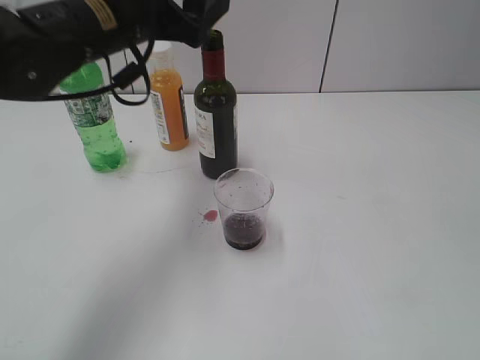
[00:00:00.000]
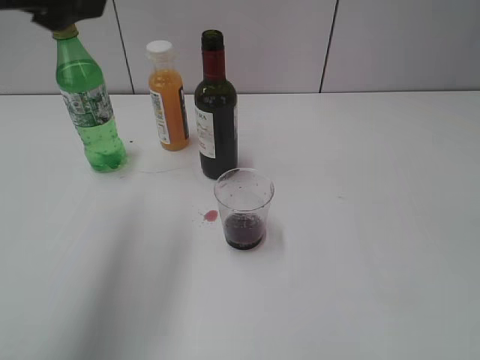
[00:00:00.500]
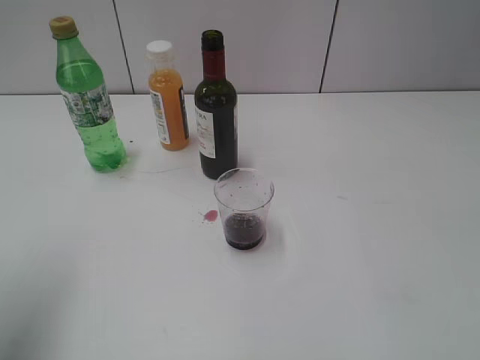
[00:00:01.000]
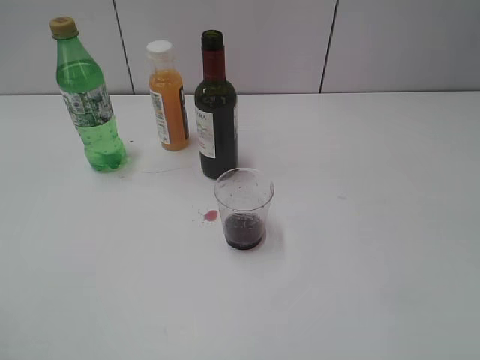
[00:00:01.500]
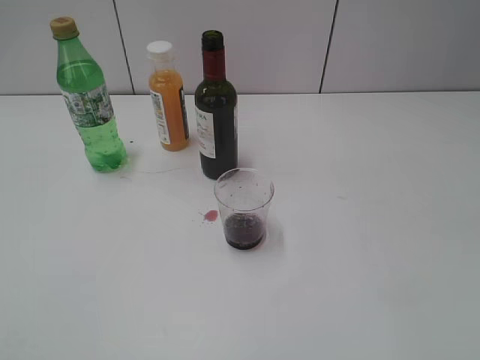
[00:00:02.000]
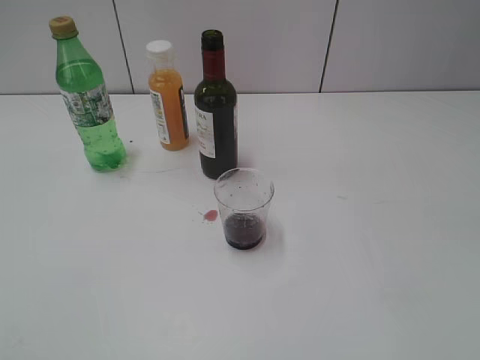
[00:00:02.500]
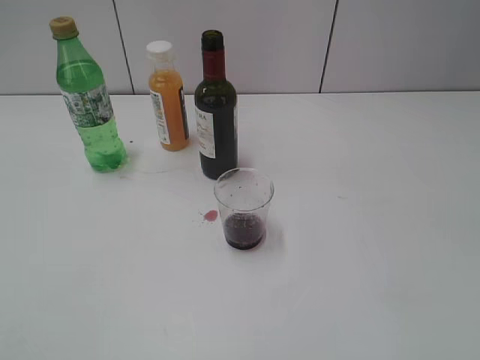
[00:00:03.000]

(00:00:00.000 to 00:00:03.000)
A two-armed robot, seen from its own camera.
00:00:00.000 - 00:00:01.500: The left gripper moves backward and to the left, roughly 30 cm.

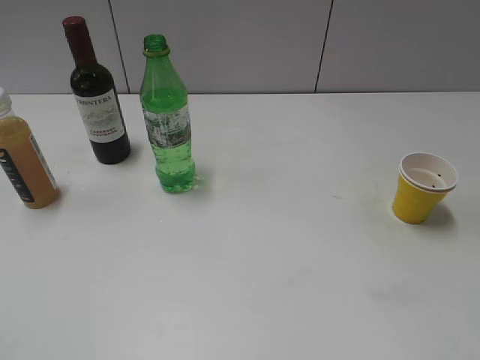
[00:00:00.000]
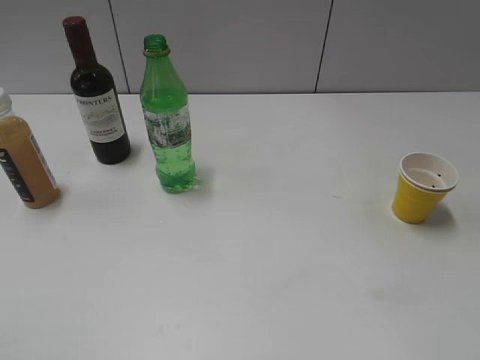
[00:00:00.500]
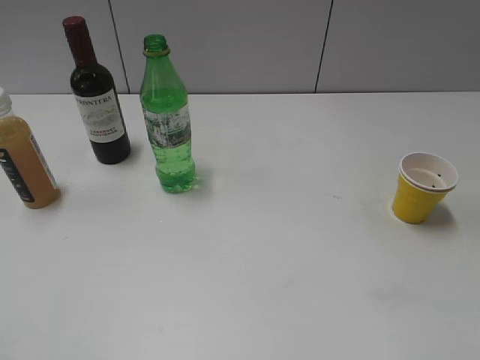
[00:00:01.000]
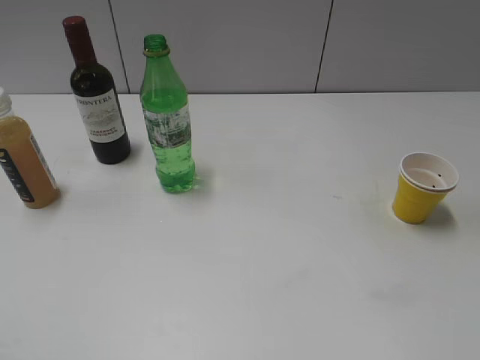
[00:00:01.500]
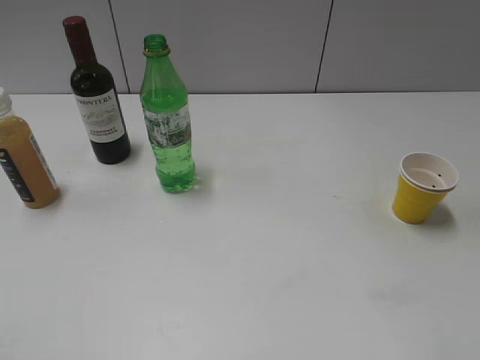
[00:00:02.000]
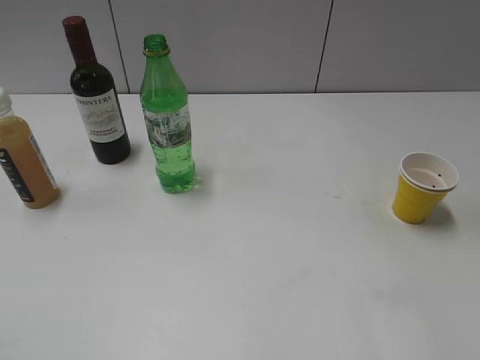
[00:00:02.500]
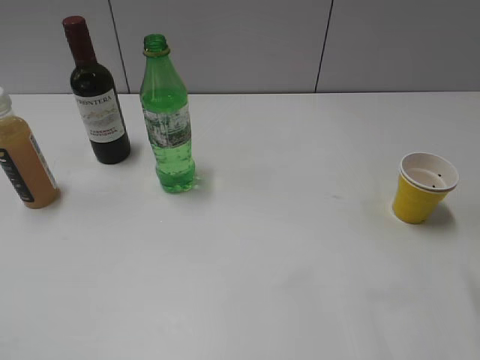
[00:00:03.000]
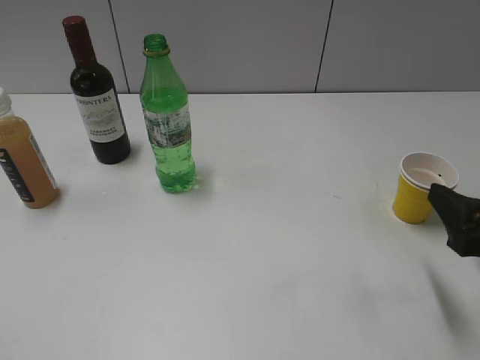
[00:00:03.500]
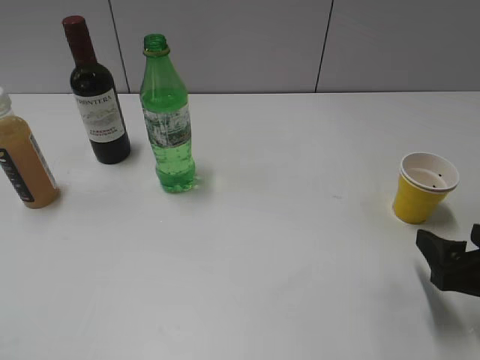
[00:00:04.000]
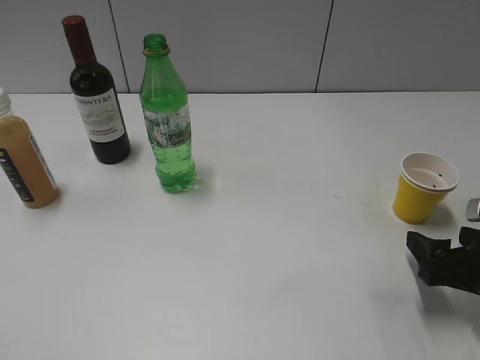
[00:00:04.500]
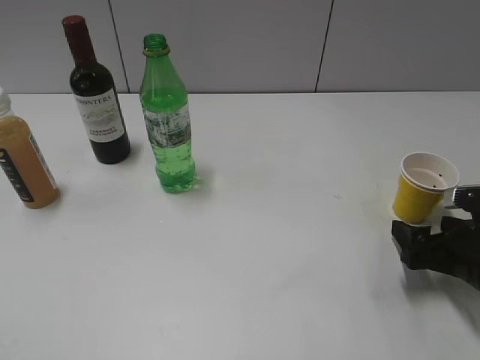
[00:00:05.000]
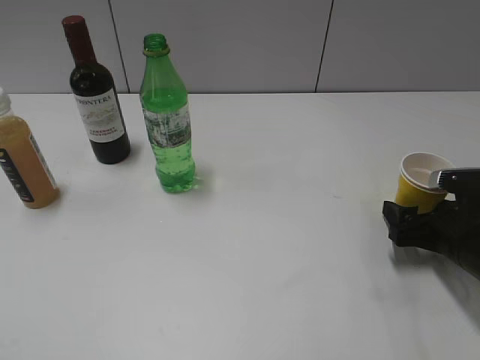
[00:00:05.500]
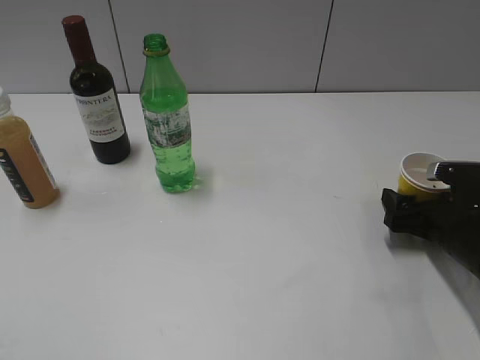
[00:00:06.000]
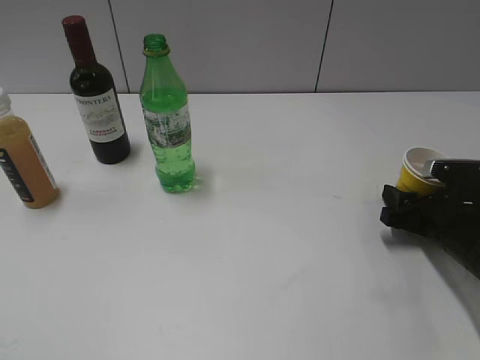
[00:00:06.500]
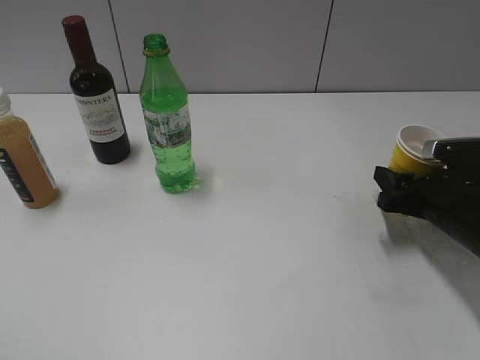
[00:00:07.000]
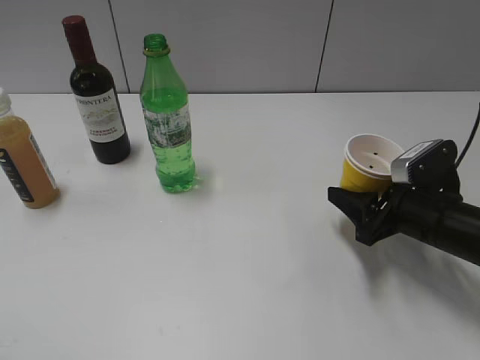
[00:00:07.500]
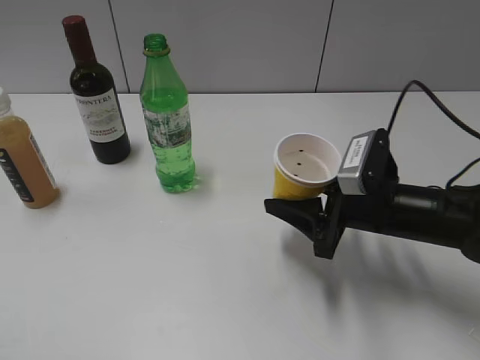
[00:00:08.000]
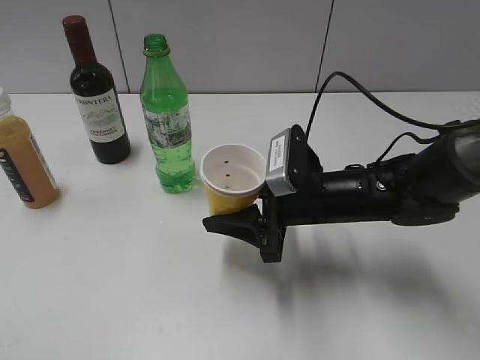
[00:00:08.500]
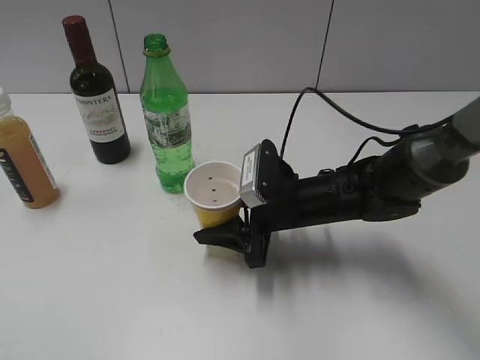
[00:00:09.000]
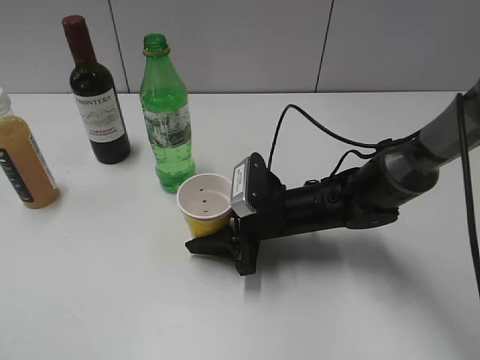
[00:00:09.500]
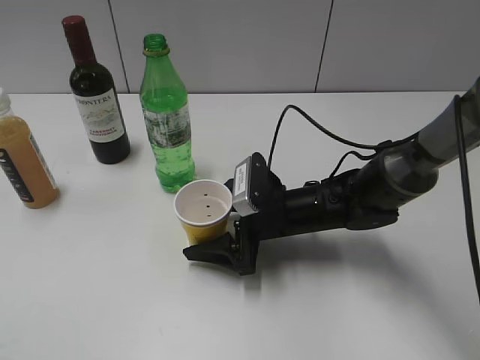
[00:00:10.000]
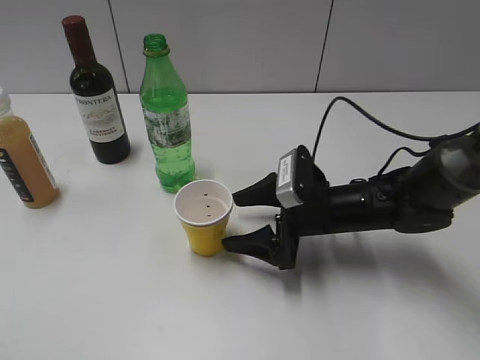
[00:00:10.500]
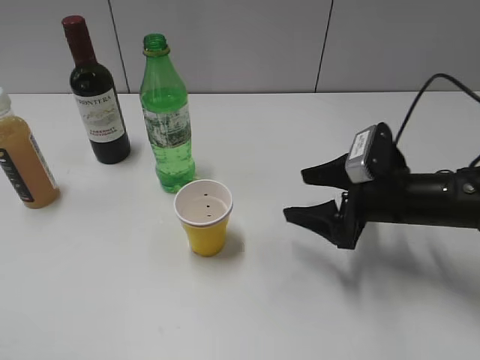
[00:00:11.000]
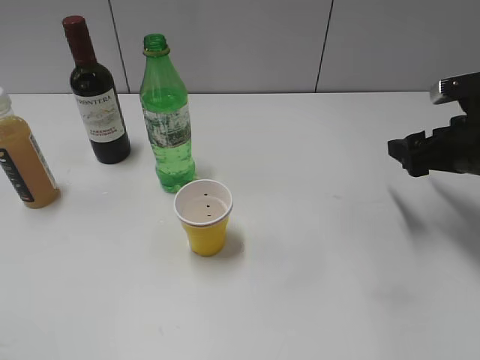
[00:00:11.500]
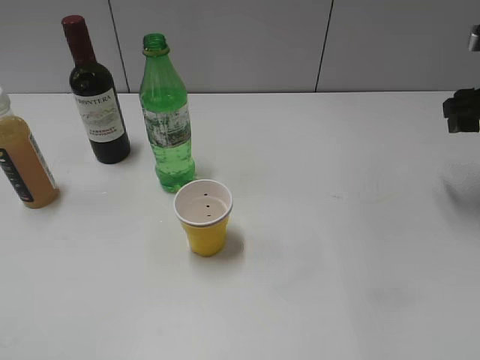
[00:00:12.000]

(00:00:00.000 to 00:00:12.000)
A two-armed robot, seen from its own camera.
Step, 00:00:01.500 - 00:00:06.000: Grasp the yellow paper cup with right gripper.
Step, 00:00:06.500 - 00:00:10.500: Place the yellow paper cup on the table with right gripper.
00:00:02.000 - 00:00:04.000: The right gripper shifts about 20 cm downward and forward.
00:00:04.000 - 00:00:06.000: The right gripper travels forward and downward by approximately 10 cm.
00:00:06.000 - 00:00:08.000: The right gripper is displaced to the left and upward by approximately 15 cm, and closes its fingers.
00:00:08.000 - 00:00:10.000: The right gripper moves to the left and downward, about 10 cm, and opens up.
00:00:10.000 - 00:00:12.000: The right gripper shifts about 30 cm to the right and upward, and closes up.

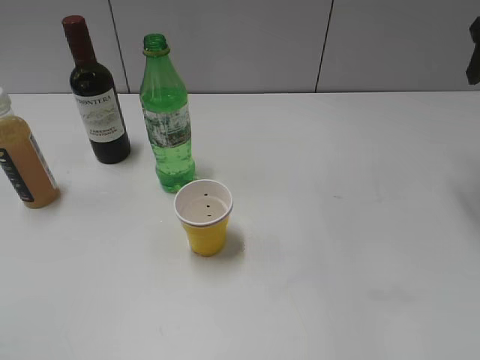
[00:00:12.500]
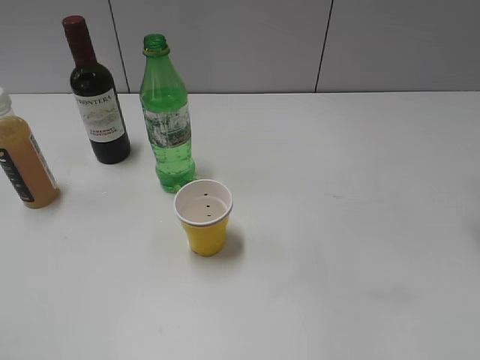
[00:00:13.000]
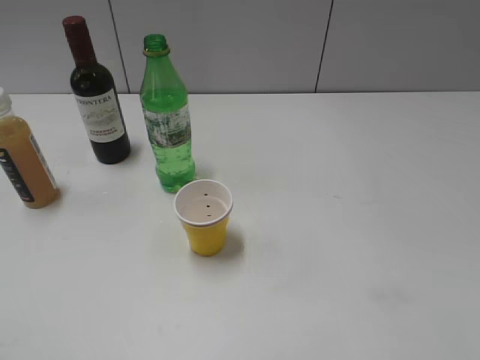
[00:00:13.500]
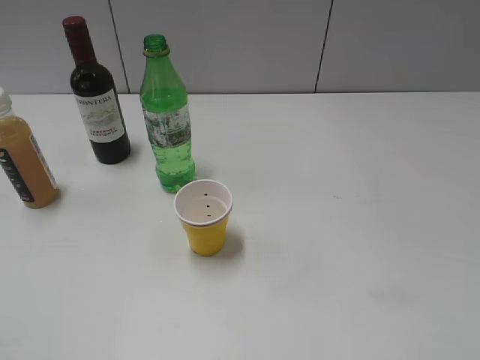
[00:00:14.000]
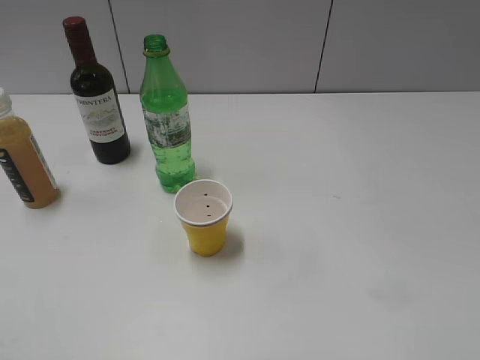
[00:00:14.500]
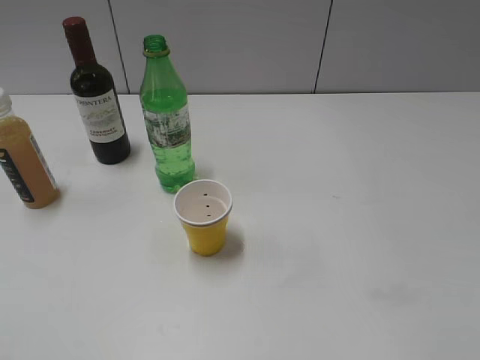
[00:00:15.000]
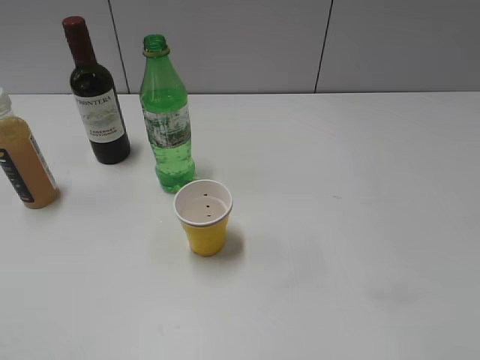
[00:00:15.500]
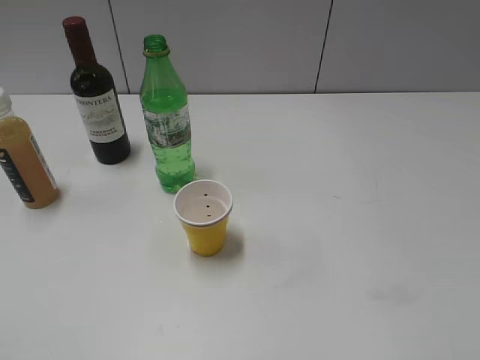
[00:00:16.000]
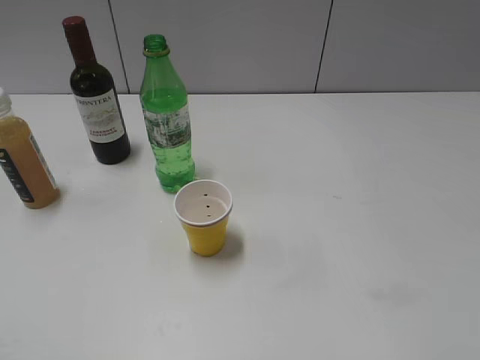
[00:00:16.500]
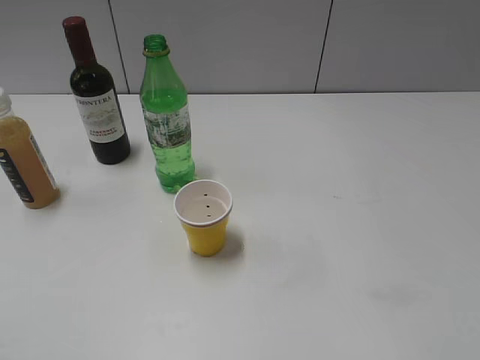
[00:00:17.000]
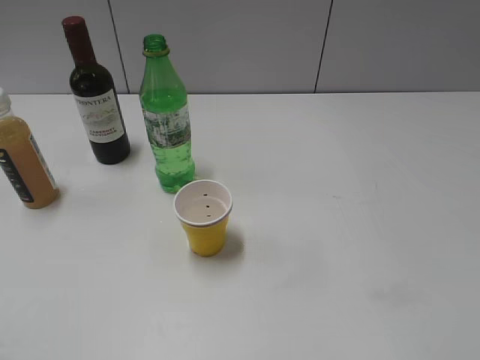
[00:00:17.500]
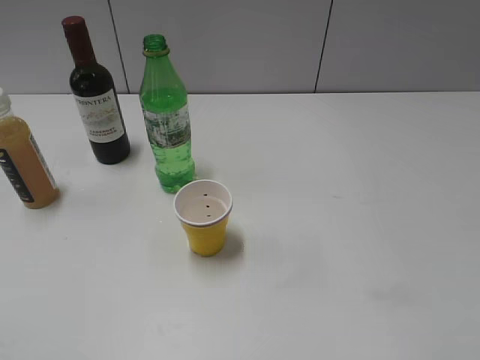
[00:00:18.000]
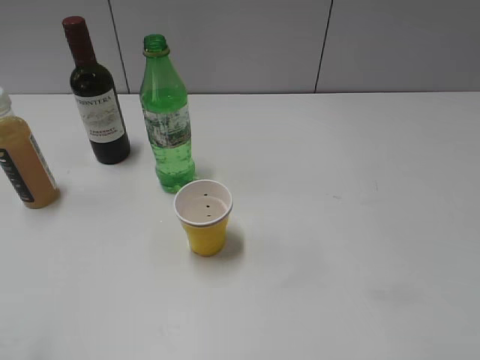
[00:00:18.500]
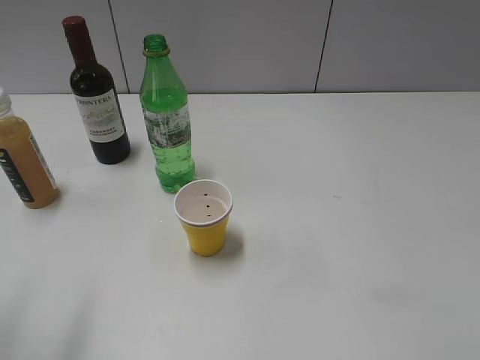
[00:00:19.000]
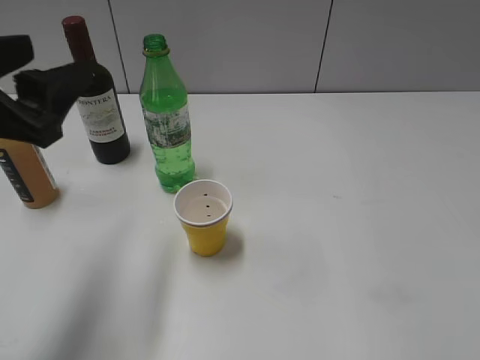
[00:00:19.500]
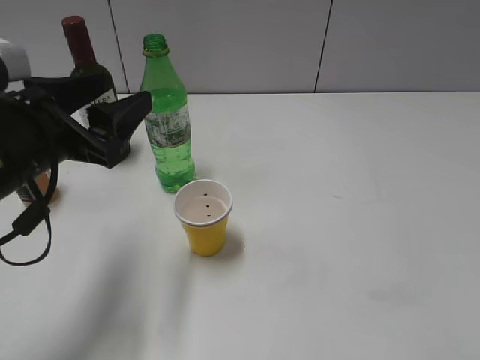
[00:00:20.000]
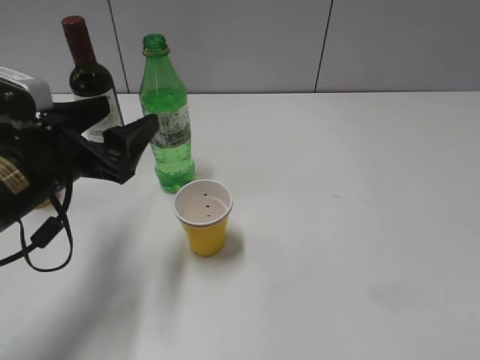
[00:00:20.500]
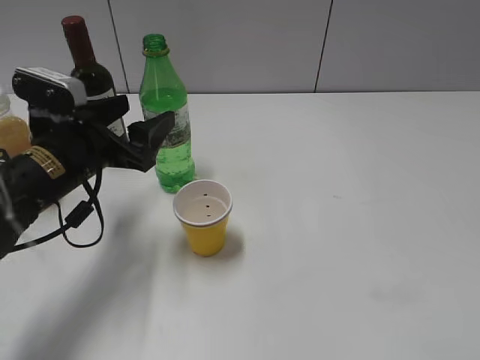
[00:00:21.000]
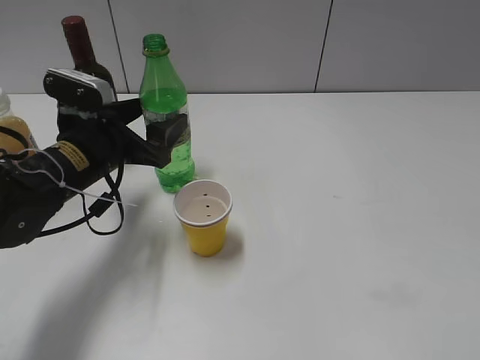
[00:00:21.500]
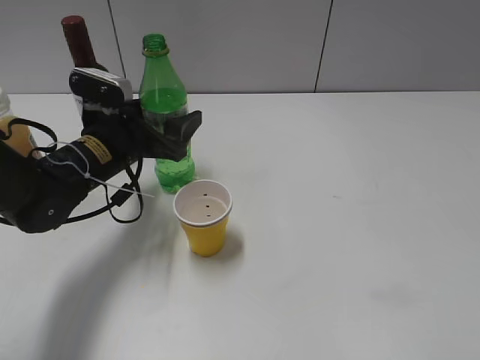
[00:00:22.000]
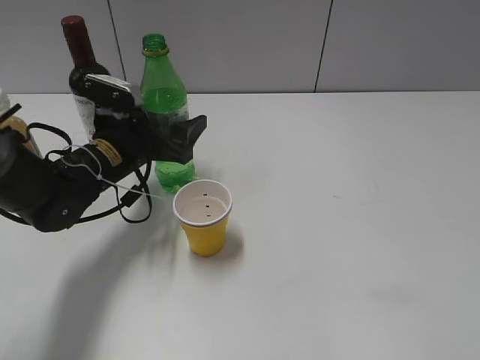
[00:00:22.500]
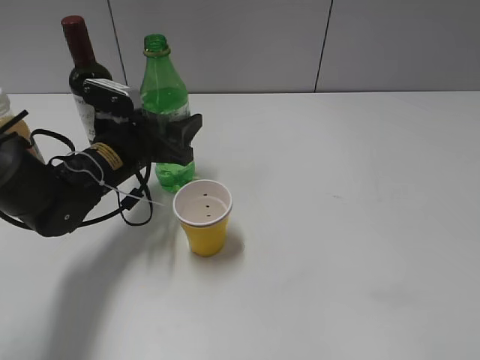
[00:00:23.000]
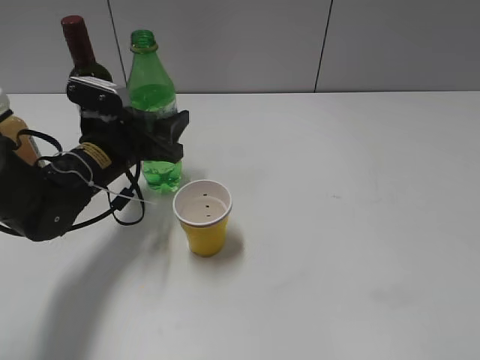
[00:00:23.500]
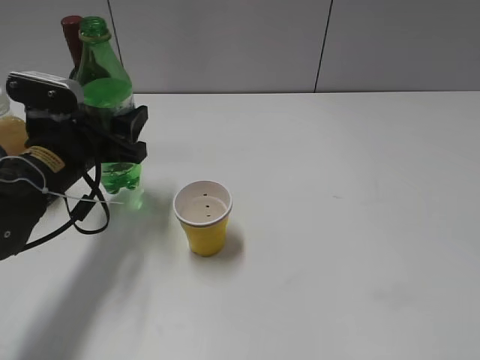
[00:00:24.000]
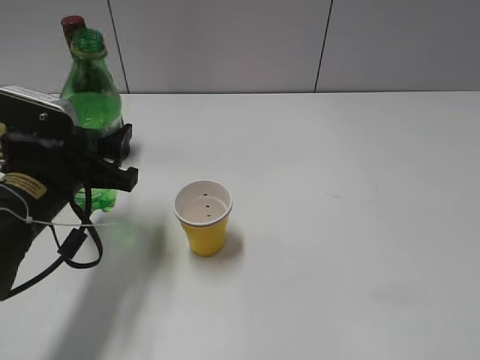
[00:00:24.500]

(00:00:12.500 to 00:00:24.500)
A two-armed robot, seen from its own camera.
Step, 00:00:12.500 - 00:00:23.000: Grasp the bottle with sprite with left gripper.
00:00:12.500 - 00:00:14.500: The right gripper moves backward, approximately 35 cm.
00:00:18.500 - 00:00:20.500: The left gripper goes about 25 cm forward, downward and to the right.
00:00:20.500 - 00:00:22.500: The left gripper travels forward and downward by some 10 cm.
00:00:22.500 - 00:00:24.500: The left gripper shifts about 10 cm backward, and closes its fingers.
